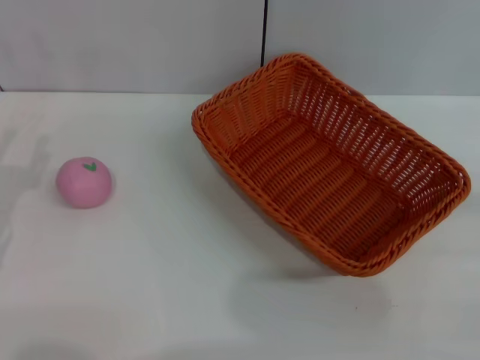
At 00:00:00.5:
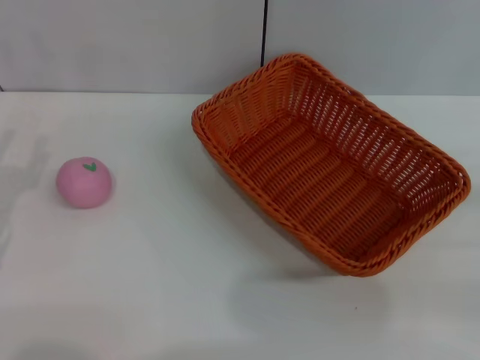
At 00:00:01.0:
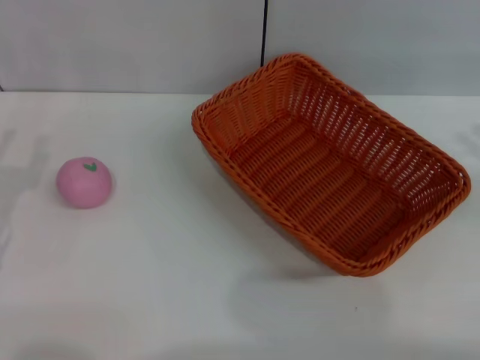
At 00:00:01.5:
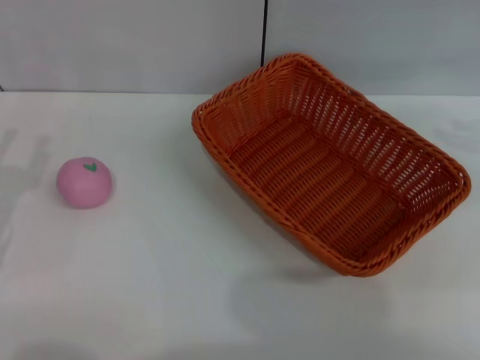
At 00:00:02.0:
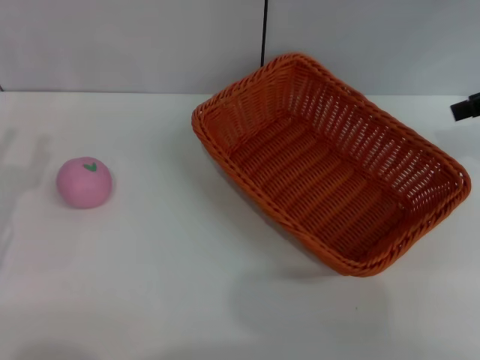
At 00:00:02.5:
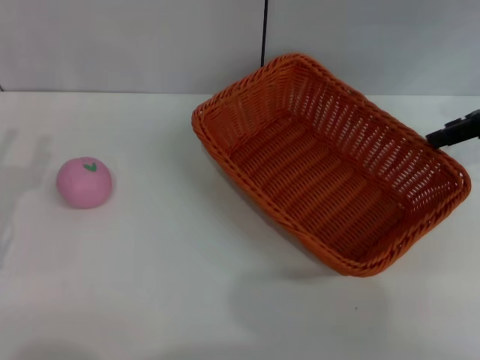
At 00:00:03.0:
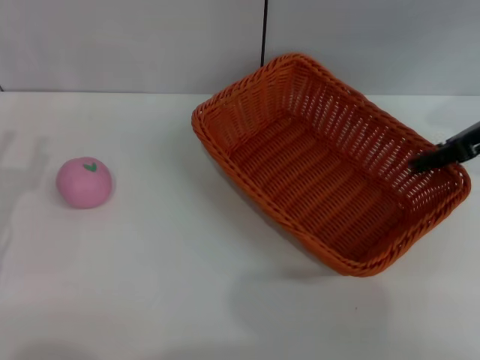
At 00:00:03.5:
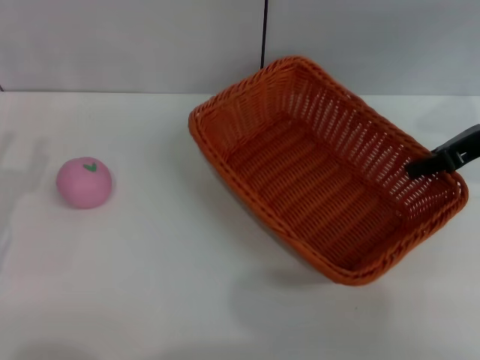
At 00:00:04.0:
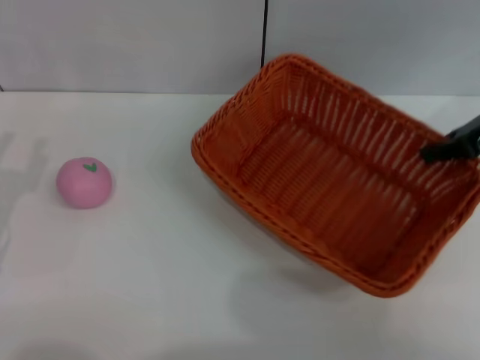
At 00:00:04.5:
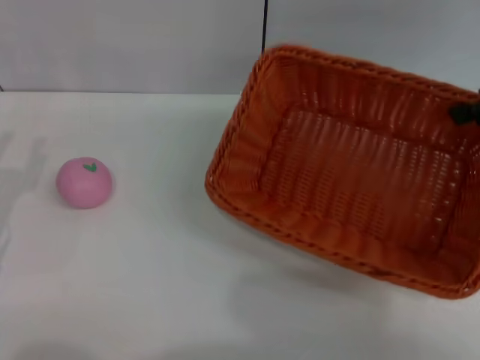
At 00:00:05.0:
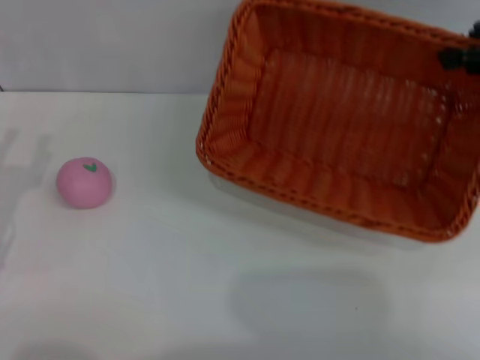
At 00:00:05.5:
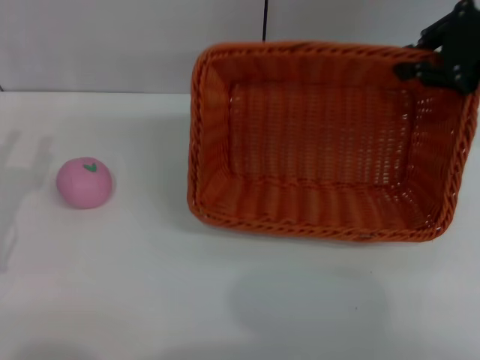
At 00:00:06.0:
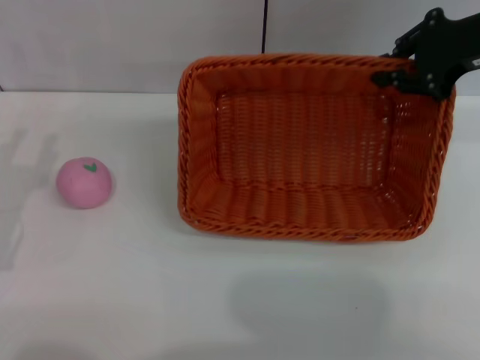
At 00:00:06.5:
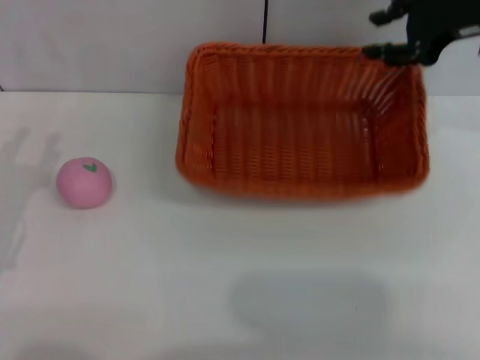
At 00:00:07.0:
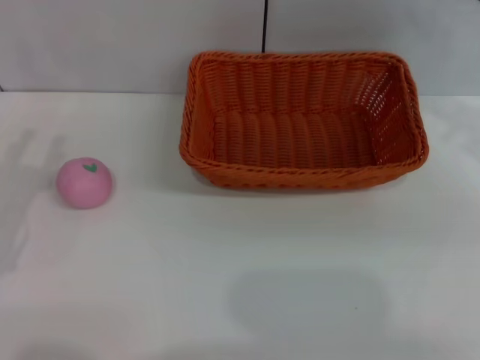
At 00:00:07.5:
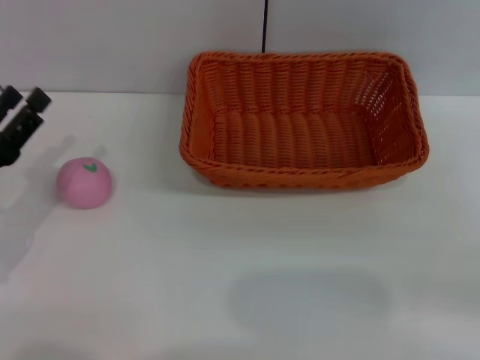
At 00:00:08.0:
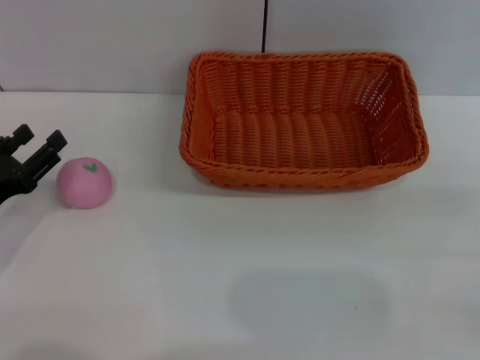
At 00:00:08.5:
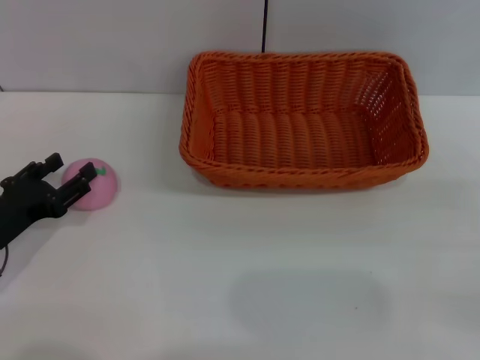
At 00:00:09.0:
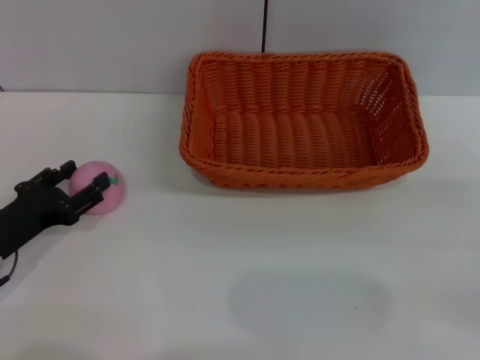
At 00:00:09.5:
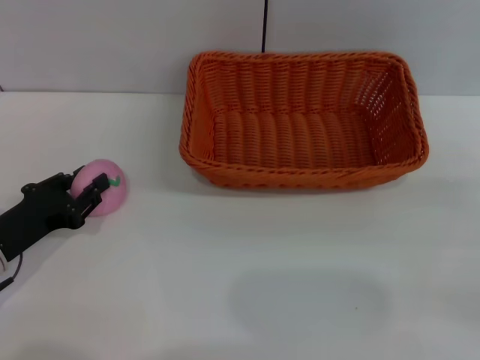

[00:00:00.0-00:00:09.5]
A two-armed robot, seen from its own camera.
Step, 00:00:00.0 to 00:00:04.0: Pick up the light basket with the right gripper.
Step, 00:00:04.5 to 00:00:07.0: Place the light basket in the center of view with the right gripper.
00:00:00.0 to 00:00:02.0: The right gripper moves forward, upward and to the left, roughly 25 cm.
00:00:02.0 to 00:00:04.0: The right gripper ends up some 5 cm from where it was, and closes up.
00:00:04.0 to 00:00:05.5: The right gripper heads upward, covering about 5 cm.
00:00:05.5 to 00:00:07.5: The right gripper heads backward, downward and to the right, covering about 20 cm, and opens its fingers.
00:00:07.5 to 00:00:09.5: The left gripper closes its fingers.

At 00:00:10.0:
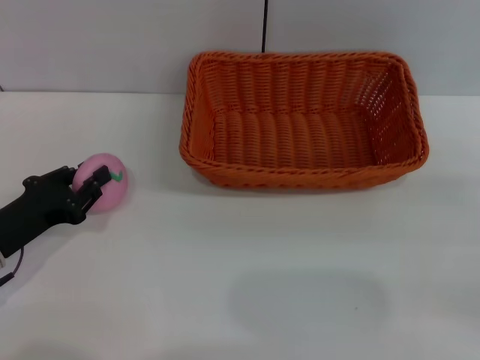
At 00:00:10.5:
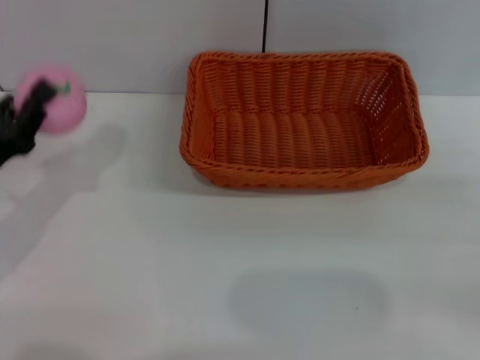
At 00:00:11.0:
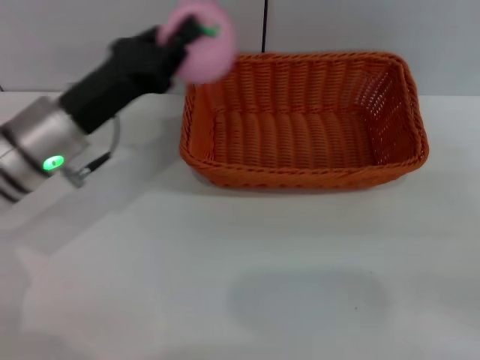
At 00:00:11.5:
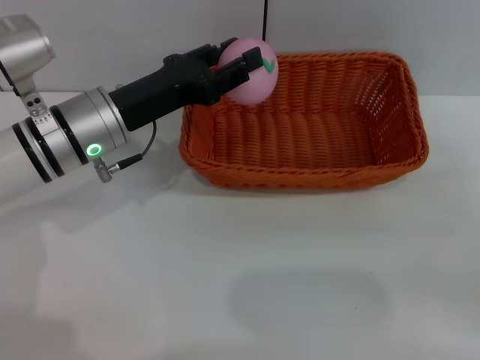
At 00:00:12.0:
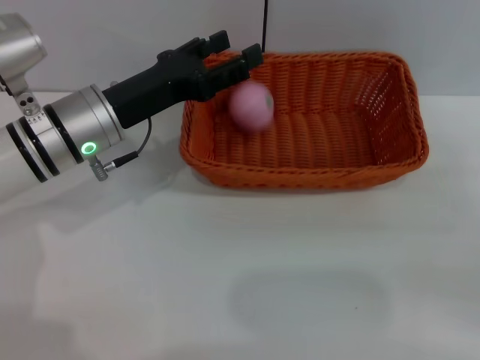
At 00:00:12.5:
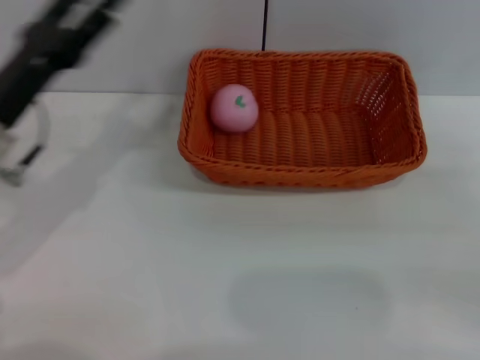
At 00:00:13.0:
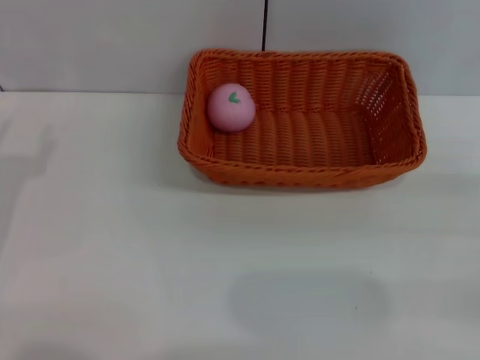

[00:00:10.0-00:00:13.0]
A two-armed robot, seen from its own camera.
Step, 00:00:10.5 to 00:00:12.0: Place the peach into the basket with the left gripper.
00:00:10.0 to 00:00:11.5: The left gripper travels to the right, forward and upward by roughly 20 cm.
00:00:11.5 to 00:00:13.0: The left gripper heads to the left and backward, covering about 20 cm, and opens its fingers.

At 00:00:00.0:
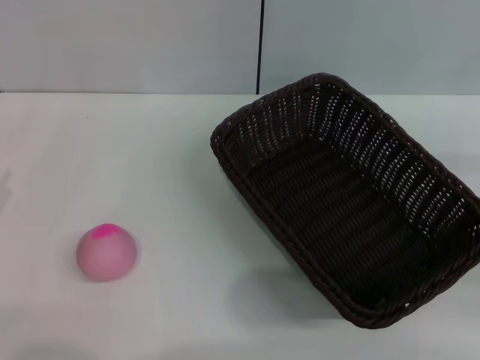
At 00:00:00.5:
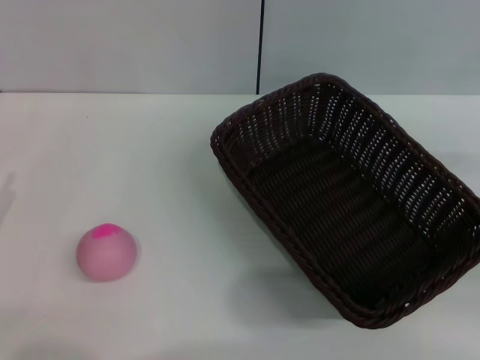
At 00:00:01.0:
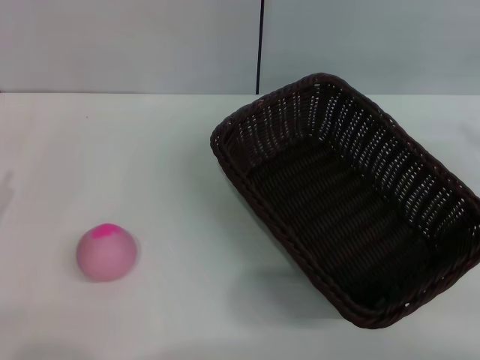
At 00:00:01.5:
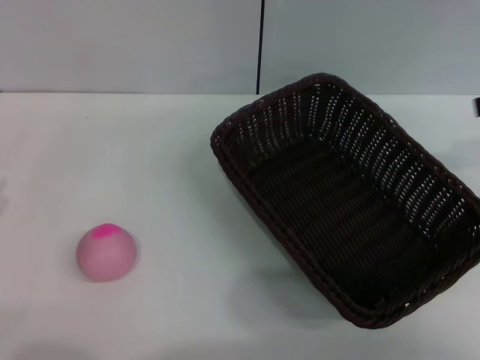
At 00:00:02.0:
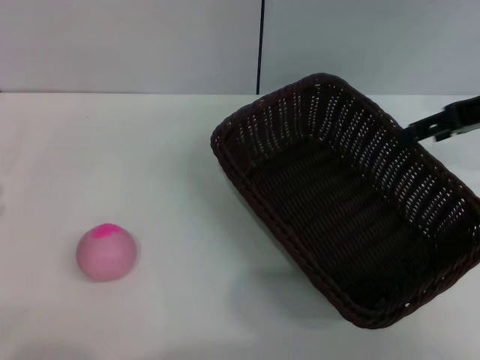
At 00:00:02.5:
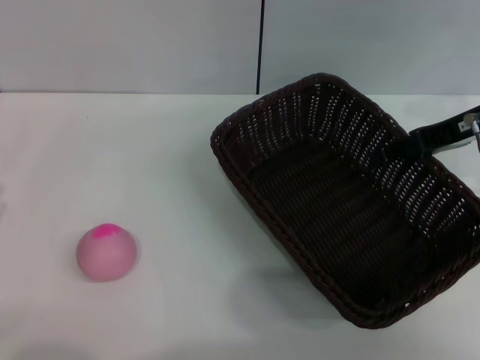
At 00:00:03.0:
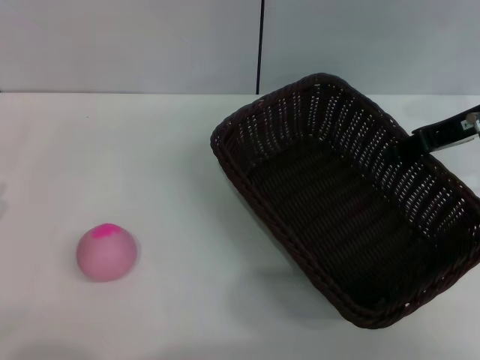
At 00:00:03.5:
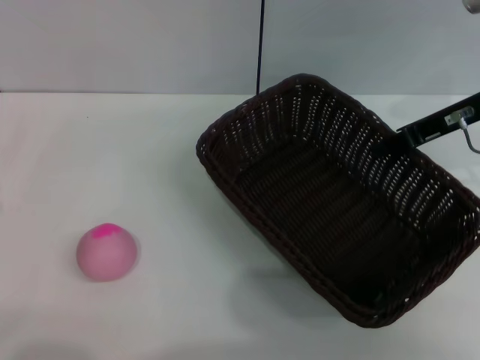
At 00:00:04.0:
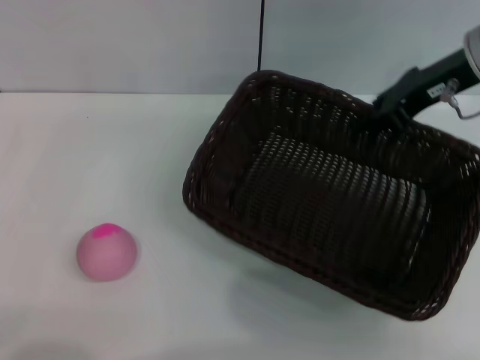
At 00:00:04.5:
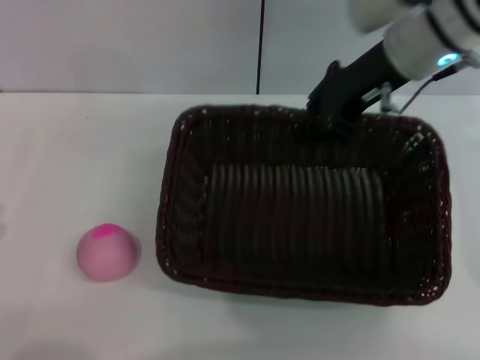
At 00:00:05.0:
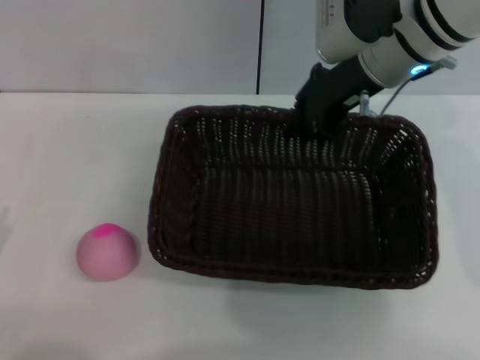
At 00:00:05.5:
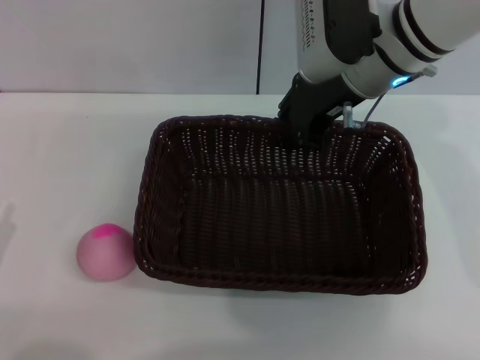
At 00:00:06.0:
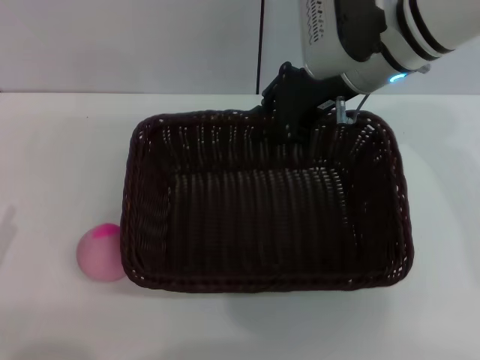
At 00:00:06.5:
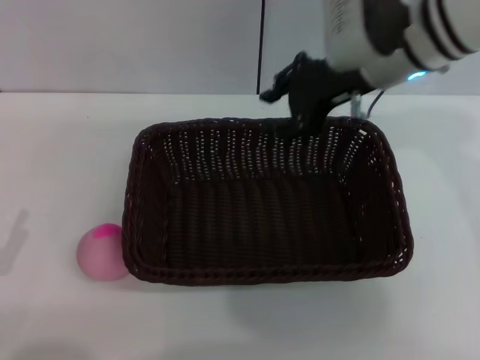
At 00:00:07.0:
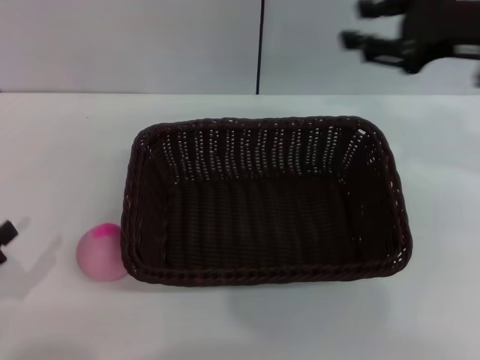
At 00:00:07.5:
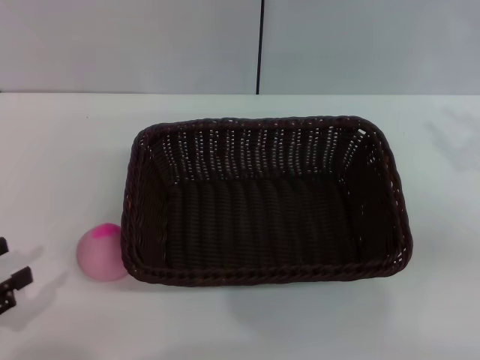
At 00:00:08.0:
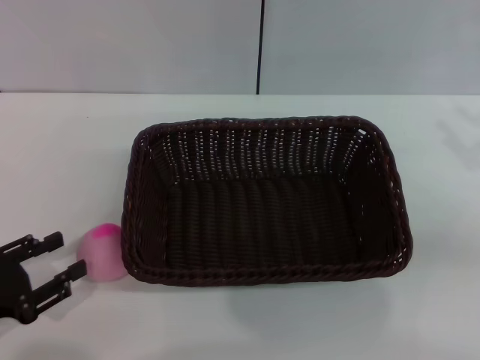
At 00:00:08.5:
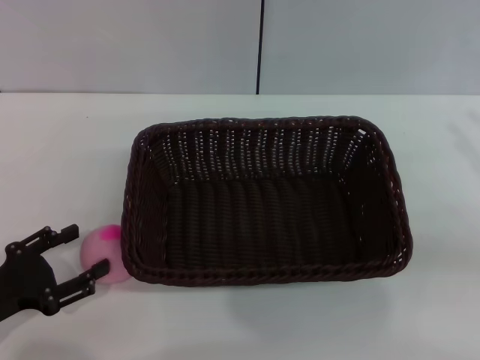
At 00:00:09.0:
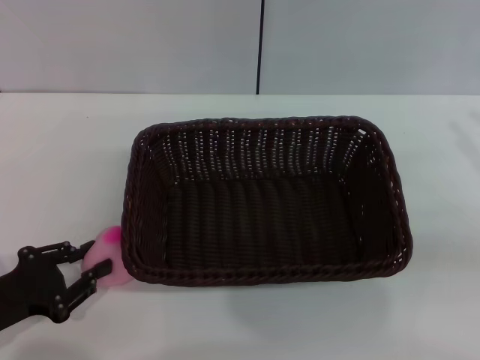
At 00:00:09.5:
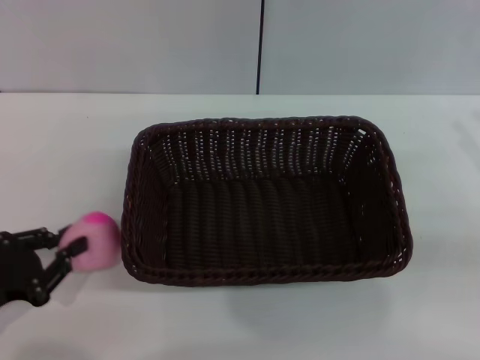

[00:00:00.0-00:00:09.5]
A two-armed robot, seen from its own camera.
Step, 00:00:00.0 to 00:00:03.5: Pick up the dark basket with the right gripper.
Step, 00:00:04.0 to 00:00:06.5: Place the dark basket in the center of view with the right gripper.
00:00:00.0 to 00:00:02.0: The right gripper moves forward, to the left and upward, some 20 cm.
00:00:02.0 to 00:00:04.0: The right gripper goes some 5 cm to the left, and closes its fingers.
00:00:04.0 to 00:00:05.5: The right gripper travels to the left by approximately 10 cm.
00:00:05.5 to 00:00:07.5: The right gripper heads to the right and backward, covering approximately 30 cm, and opens.
00:00:07.5 to 00:00:09.5: The left gripper shifts by about 5 cm, and closes.

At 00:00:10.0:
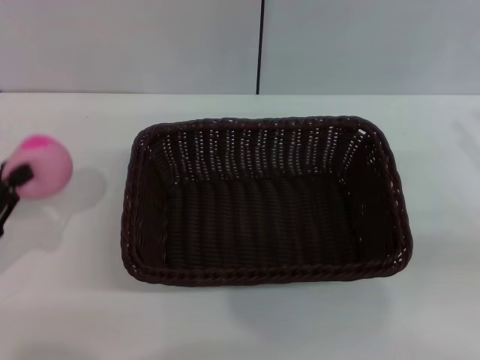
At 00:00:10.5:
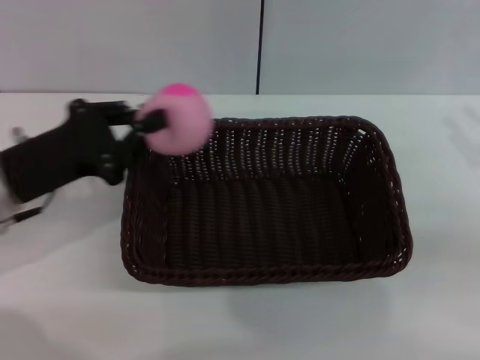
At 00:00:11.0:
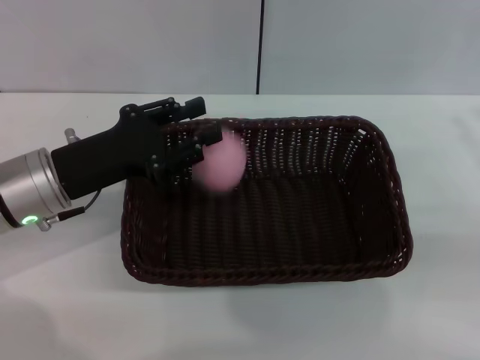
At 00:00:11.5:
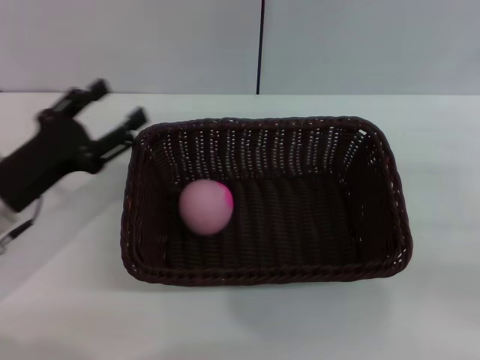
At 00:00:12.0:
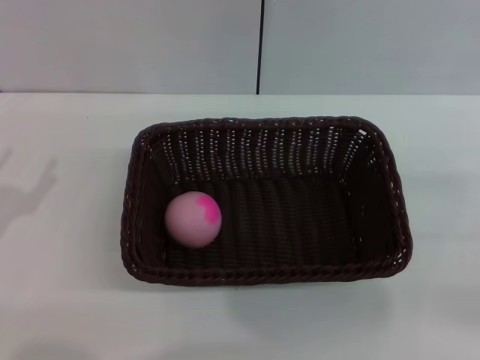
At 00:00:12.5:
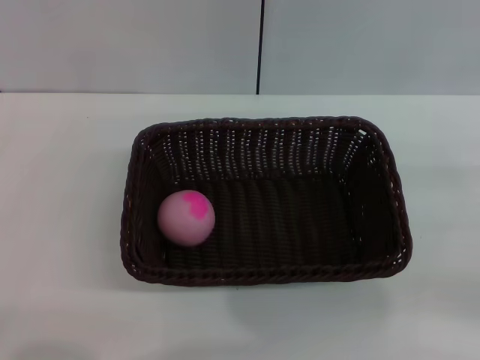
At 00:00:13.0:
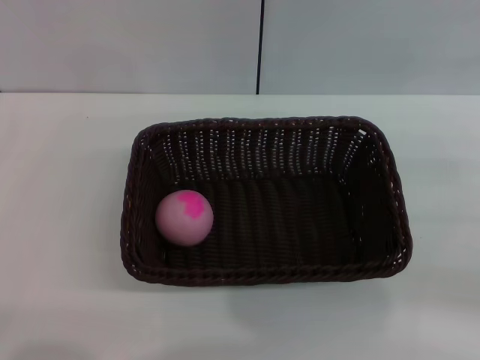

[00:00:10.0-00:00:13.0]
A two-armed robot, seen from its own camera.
Step, 00:00:10.0 to 00:00:11.0: Place the peach into the basket with the left gripper.
00:00:10.0 to 00:00:11.5: The left gripper travels to the right and forward by approximately 10 cm, and opens its fingers.
00:00:11.5 to 00:00:13.0: The left gripper goes some 15 cm backward and to the left.
